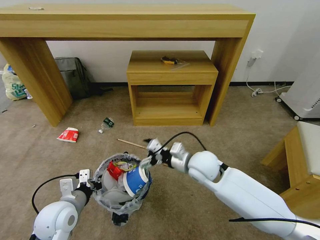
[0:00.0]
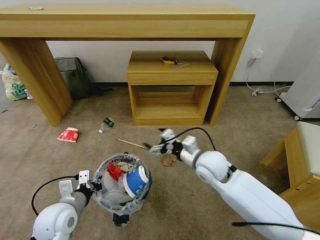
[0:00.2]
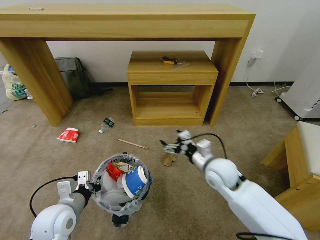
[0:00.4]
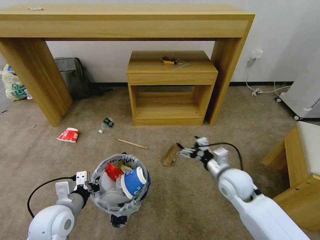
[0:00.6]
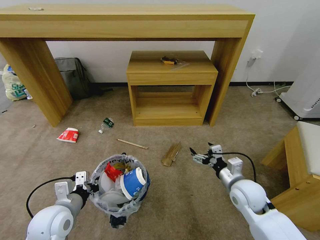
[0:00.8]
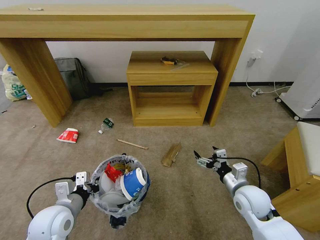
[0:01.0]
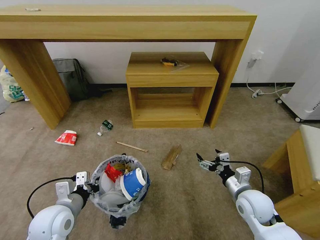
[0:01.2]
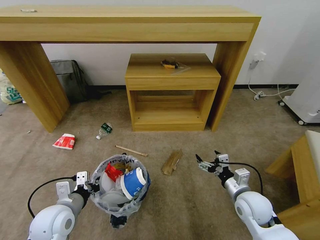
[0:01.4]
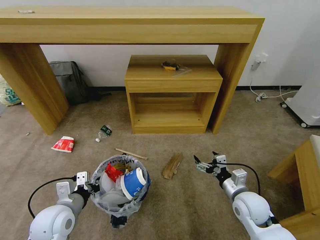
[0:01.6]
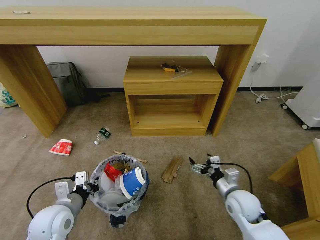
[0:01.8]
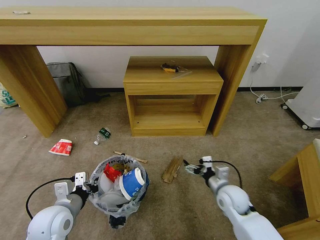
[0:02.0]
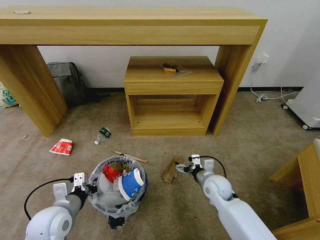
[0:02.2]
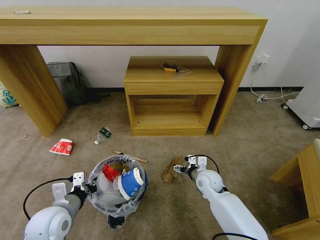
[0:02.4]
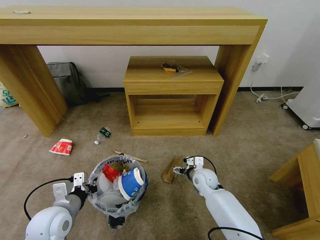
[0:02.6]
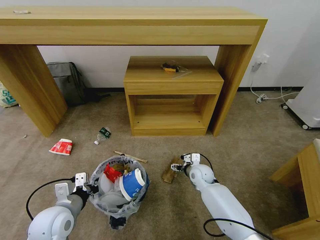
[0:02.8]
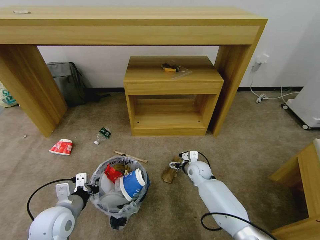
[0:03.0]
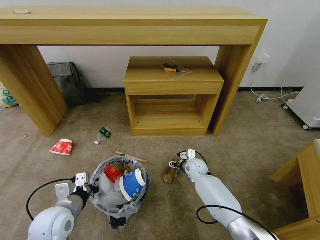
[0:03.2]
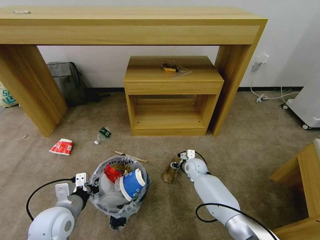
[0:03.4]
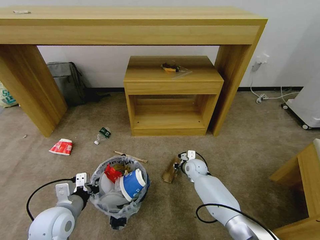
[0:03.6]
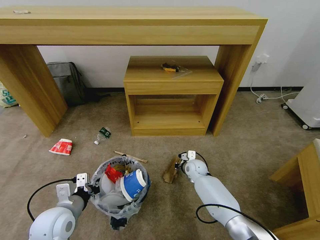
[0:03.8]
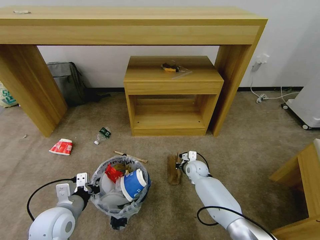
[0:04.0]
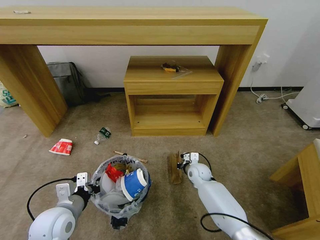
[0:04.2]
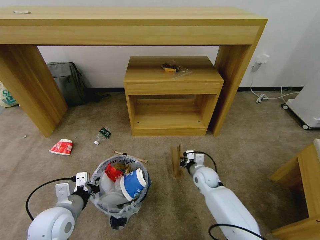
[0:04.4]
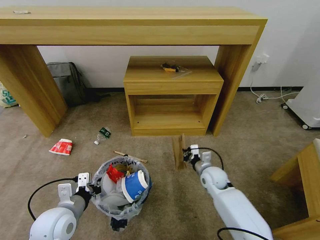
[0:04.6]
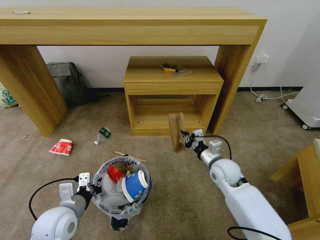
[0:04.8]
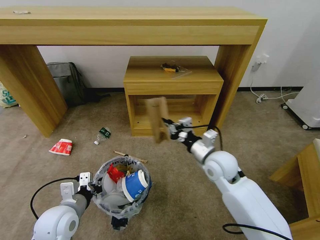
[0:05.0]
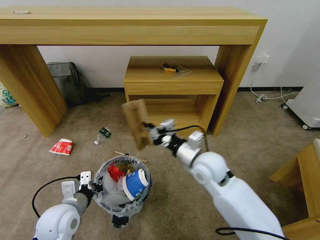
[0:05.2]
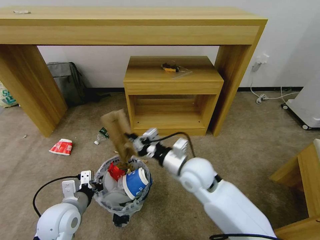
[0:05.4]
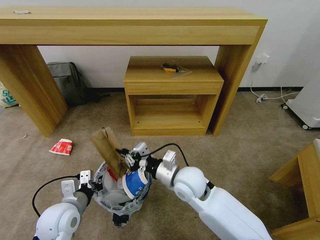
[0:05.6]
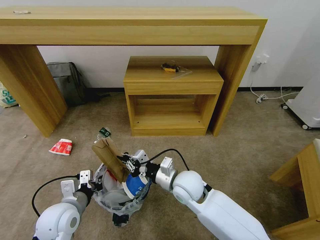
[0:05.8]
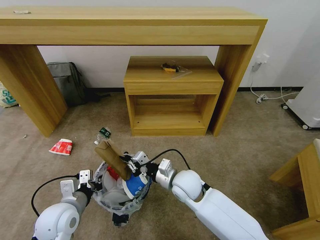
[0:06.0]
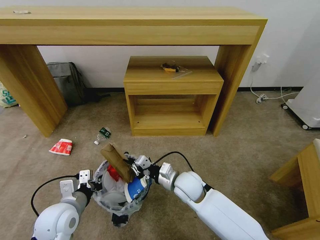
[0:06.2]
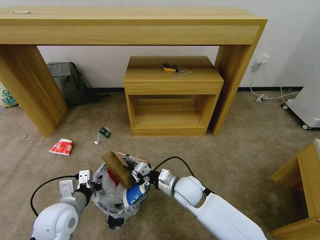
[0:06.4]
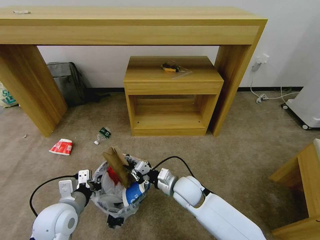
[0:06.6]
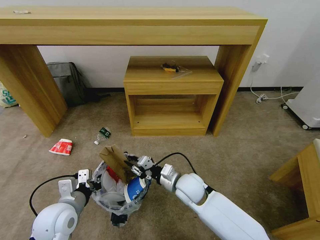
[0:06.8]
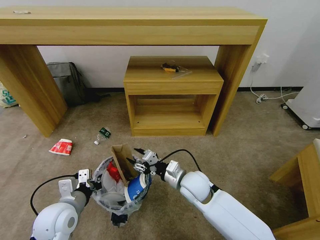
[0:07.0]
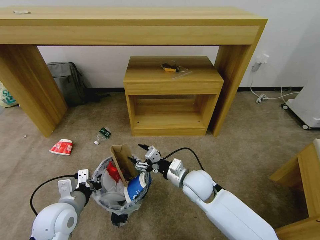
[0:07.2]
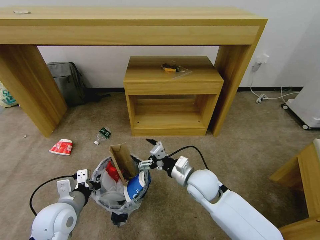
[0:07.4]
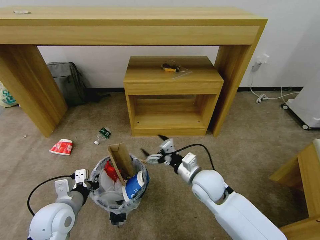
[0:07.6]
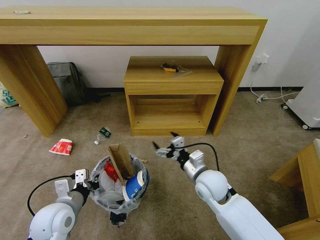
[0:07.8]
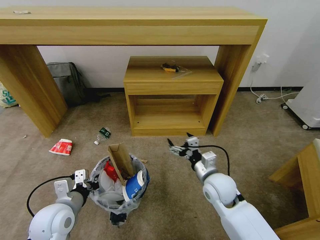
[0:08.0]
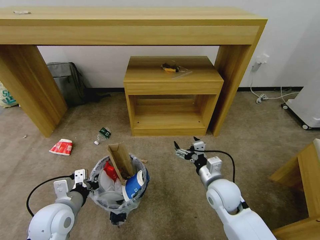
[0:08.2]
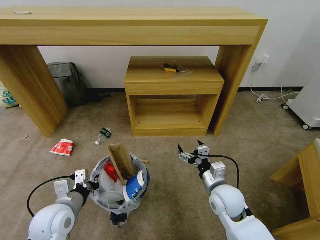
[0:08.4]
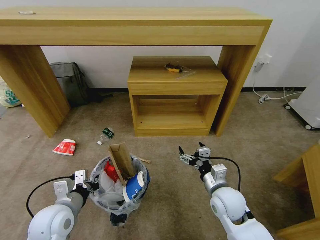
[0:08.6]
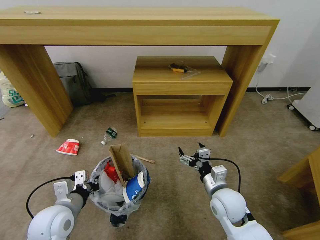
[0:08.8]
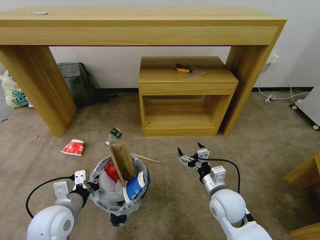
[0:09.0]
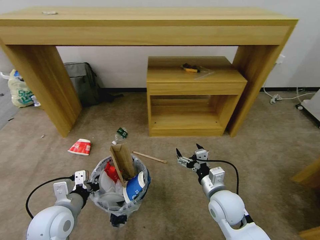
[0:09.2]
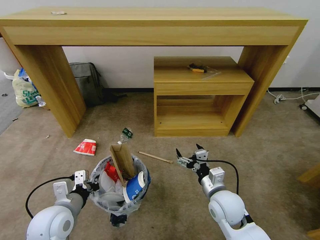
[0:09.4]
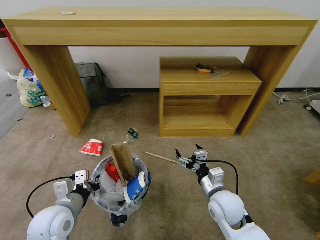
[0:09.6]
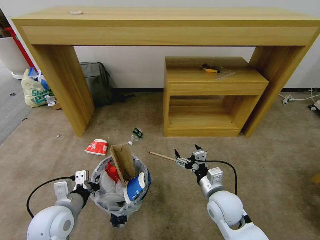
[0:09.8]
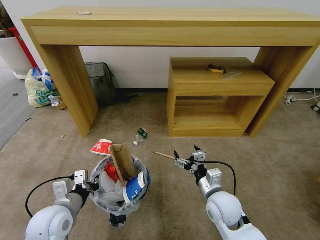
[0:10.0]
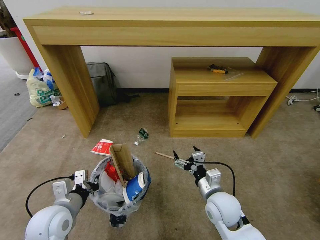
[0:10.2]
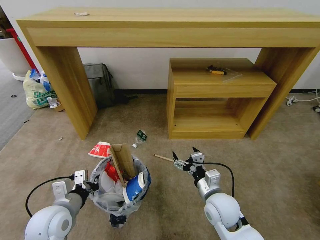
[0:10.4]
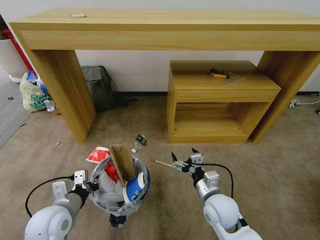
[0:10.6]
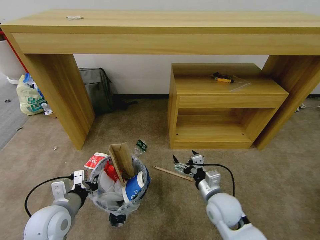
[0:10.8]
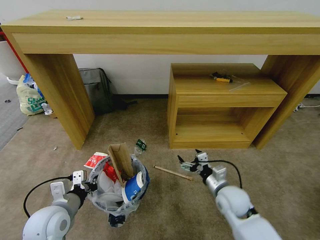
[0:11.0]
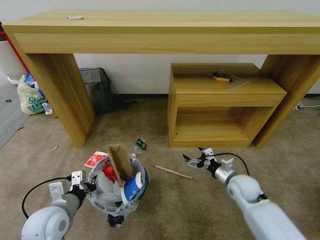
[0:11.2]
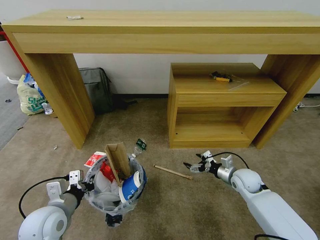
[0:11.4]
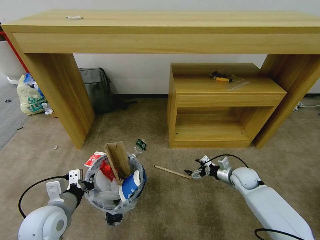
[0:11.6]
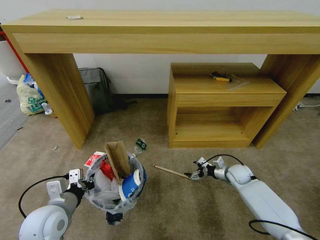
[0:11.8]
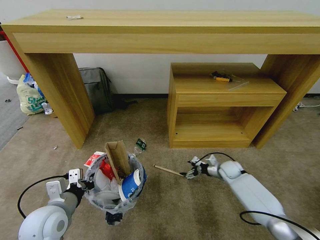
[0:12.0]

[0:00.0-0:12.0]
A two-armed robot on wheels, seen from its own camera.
Task of the whole recording: Pick up the trash bin and place the garbage on the floor into it.
0:00.0 to 0:01.6: The right gripper travels to the right, backward and downward by approximately 20 cm.
0:01.6 to 0:03.0: The right gripper shifts about 20 cm forward, to the left and downward.
0:03.0 to 0:04.4: The right gripper closes up.
0:04.4 to 0:06.0: The right gripper travels upward, to the left and backward by about 20 cm.
0:06.0 to 0:07.6: The right gripper heads to the right, covering approximately 5 cm, and opens.
0:07.6 to 0:09.0: The right gripper shifts about 5 cm to the right.
0:10.4 to 0:12.0: The right gripper moves forward, to the right and downward, roughly 30 cm.

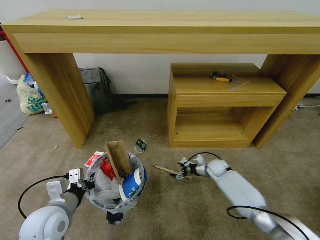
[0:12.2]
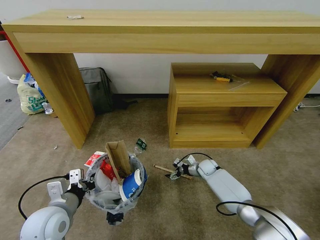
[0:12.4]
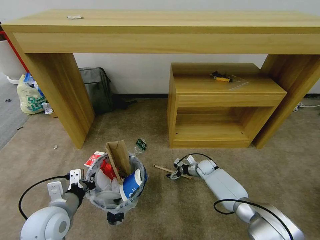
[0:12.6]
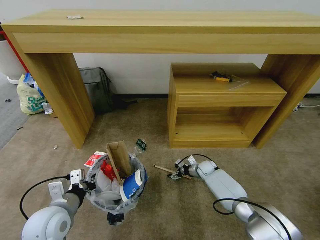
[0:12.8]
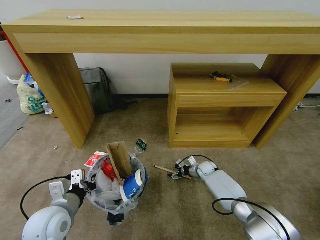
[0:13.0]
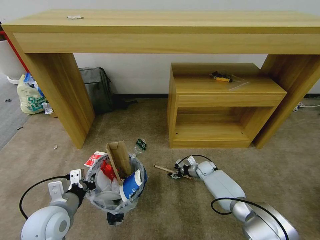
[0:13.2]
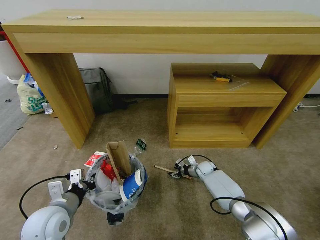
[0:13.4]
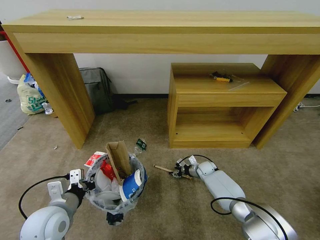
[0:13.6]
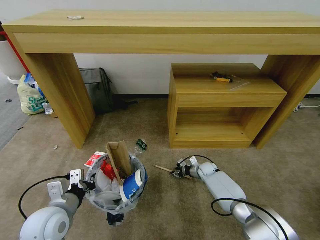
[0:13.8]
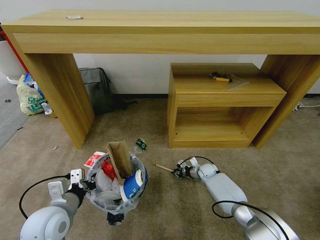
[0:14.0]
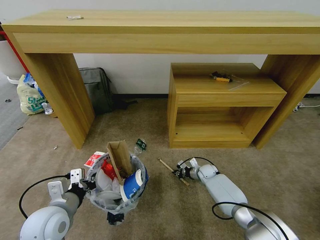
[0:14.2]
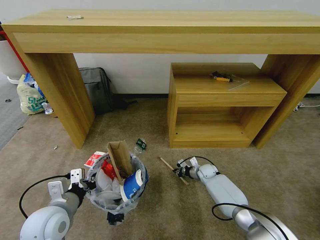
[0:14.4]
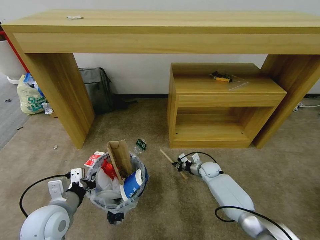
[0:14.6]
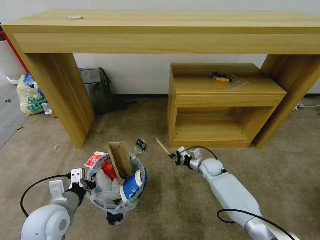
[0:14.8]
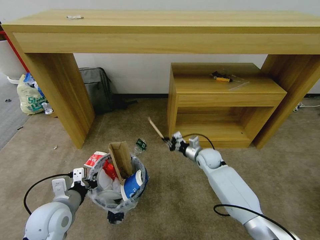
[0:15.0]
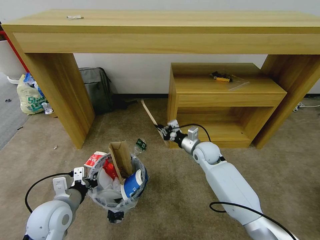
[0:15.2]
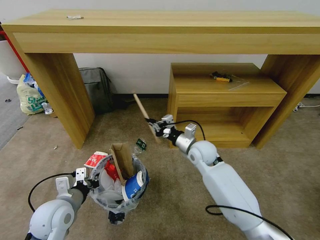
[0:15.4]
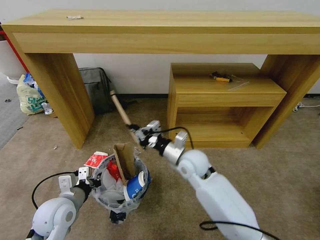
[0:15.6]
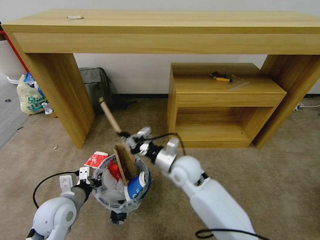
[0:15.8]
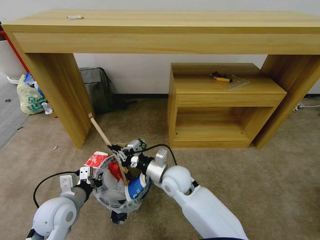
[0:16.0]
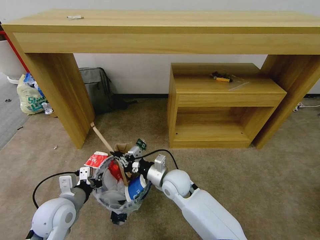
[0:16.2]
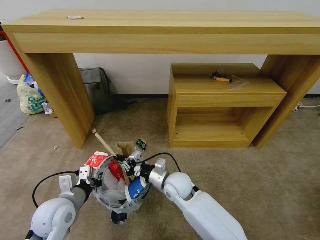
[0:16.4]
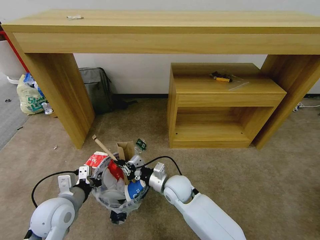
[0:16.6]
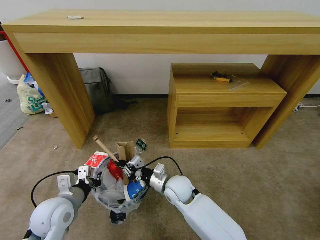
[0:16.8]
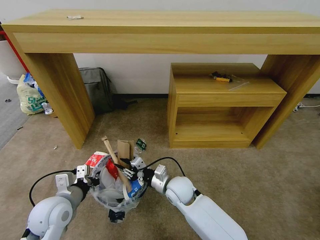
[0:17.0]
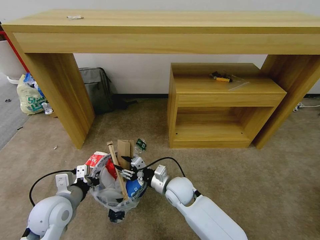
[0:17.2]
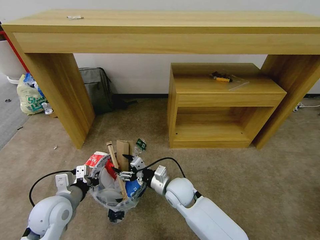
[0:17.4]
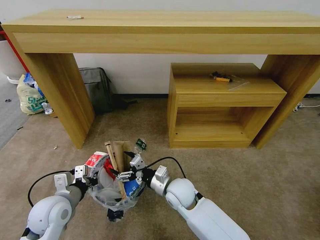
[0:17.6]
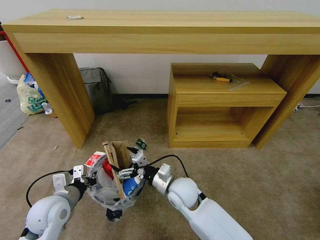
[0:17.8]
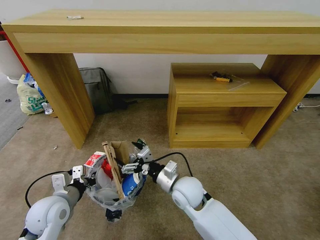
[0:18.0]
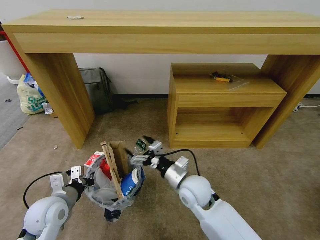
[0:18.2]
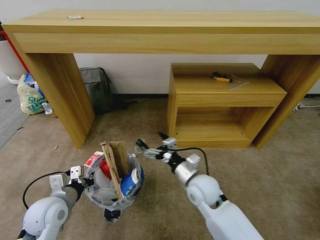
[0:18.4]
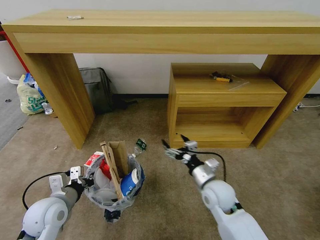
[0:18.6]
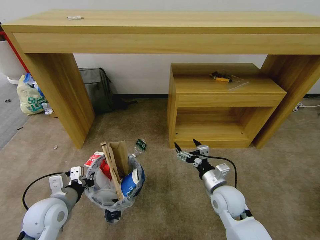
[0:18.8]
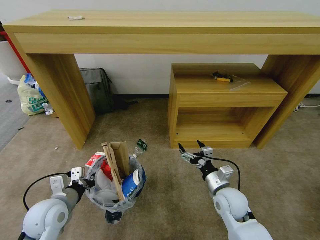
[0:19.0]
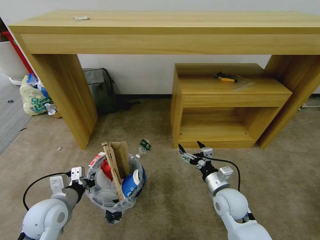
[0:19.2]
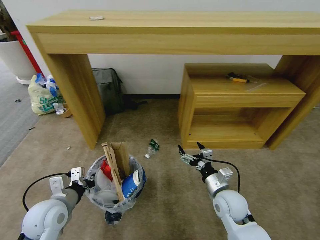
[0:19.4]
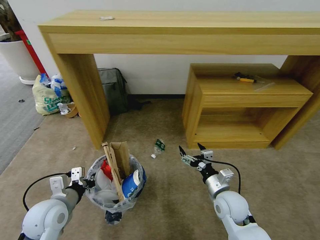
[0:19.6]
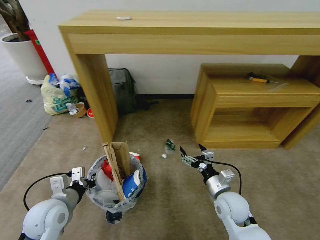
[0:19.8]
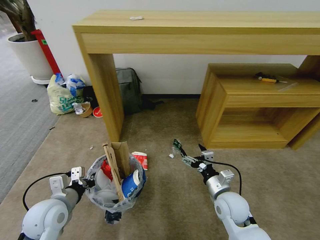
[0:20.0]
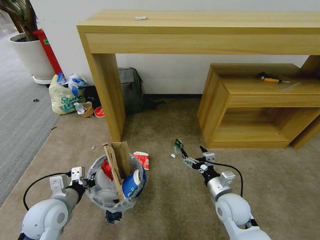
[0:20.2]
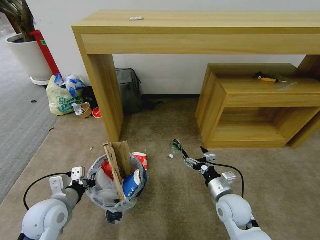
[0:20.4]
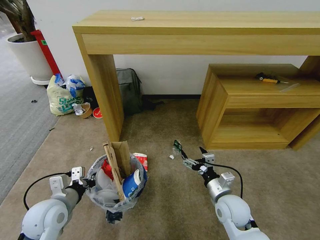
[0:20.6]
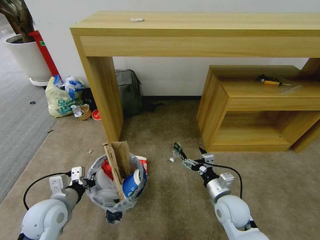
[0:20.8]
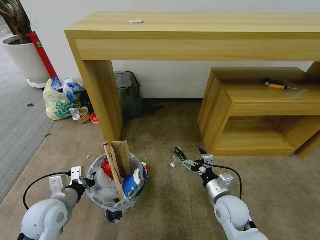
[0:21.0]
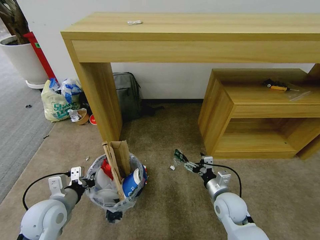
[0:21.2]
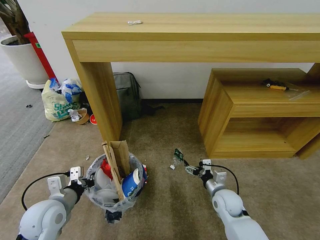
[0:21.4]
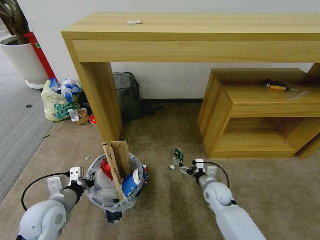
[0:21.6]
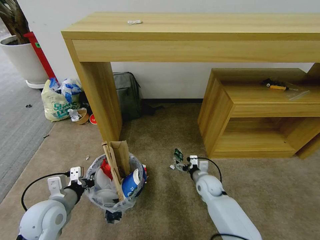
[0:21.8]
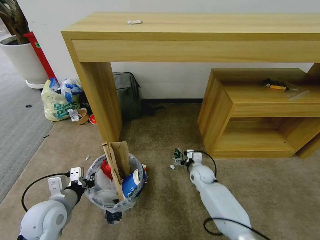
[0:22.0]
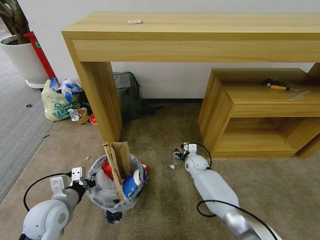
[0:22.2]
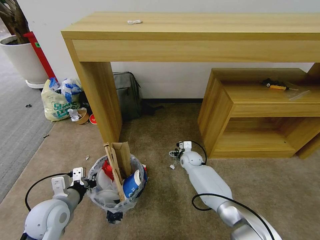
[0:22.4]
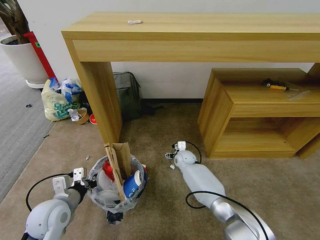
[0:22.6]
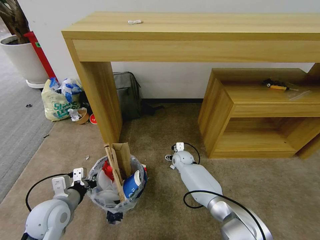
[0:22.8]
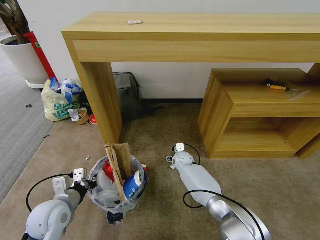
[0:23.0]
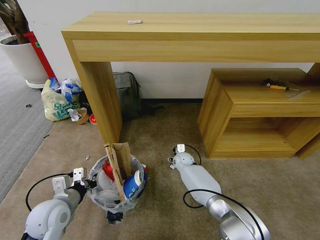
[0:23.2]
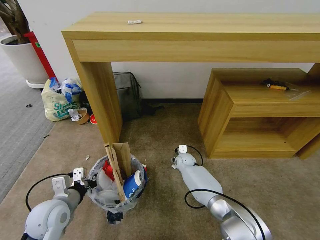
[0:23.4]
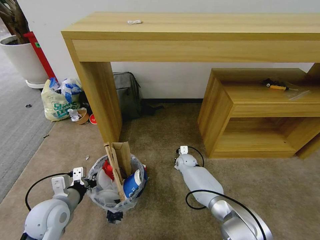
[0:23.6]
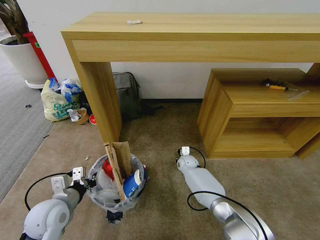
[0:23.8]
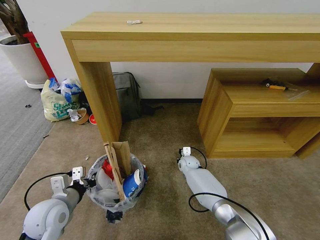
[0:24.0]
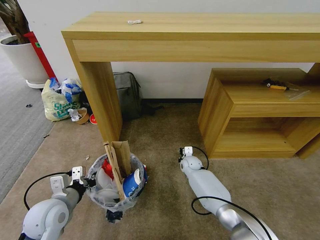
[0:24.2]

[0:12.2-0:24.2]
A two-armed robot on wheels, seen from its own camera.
Task of the whole recording: Pick up the trash bin and place the garbage on the floor into it.
0:12.2 to 0:13.8: The right gripper moves about 5 cm, and closes.
0:13.8 to 0:15.2: The right gripper heads upward, covering about 20 cm, and closes up.
0:15.2 to 0:16.6: The right gripper moves backward and to the left, some 20 cm.
0:16.6 to 0:18.2: The right gripper moves upward, approximately 5 cm, and opens its fingers.
0:18.2 to 0:19.8: The right gripper heads to the right and downward, covering approximately 15 cm.
0:21.2 to 0:22.6: The right gripper moves forward and to the left, about 25 cm.
0:22.6 to 0:24.2: The right gripper closes its fingers.
